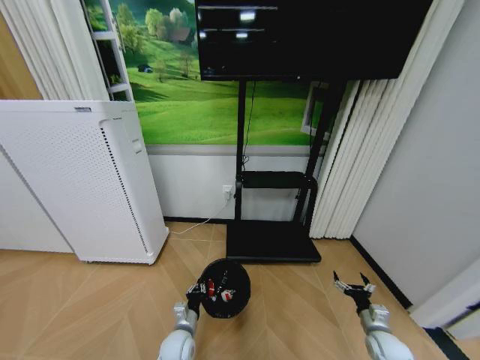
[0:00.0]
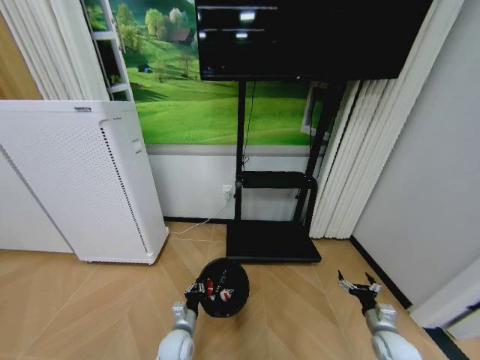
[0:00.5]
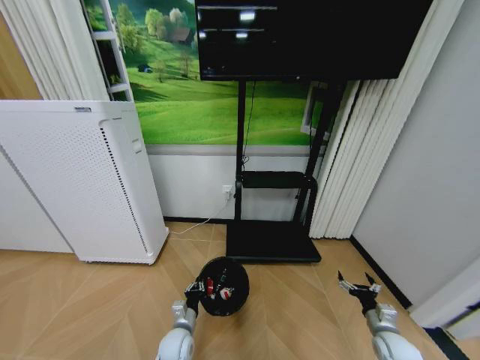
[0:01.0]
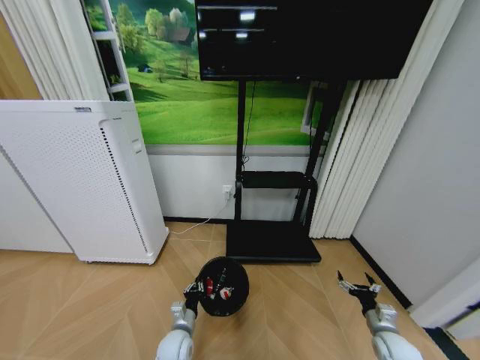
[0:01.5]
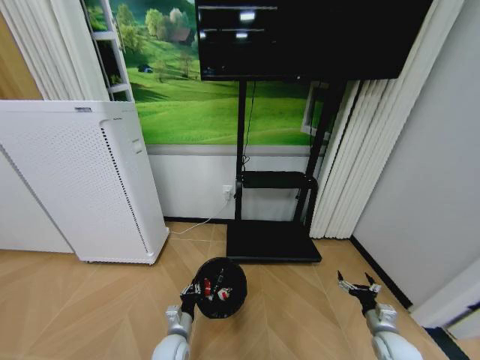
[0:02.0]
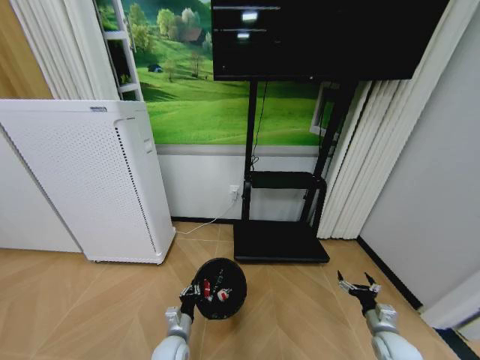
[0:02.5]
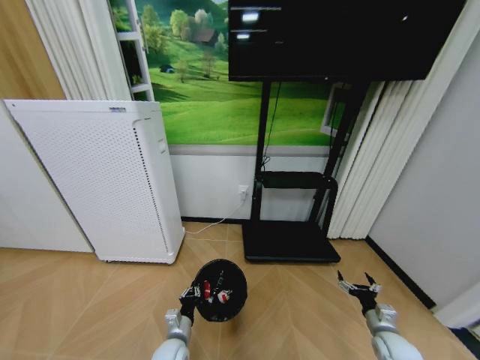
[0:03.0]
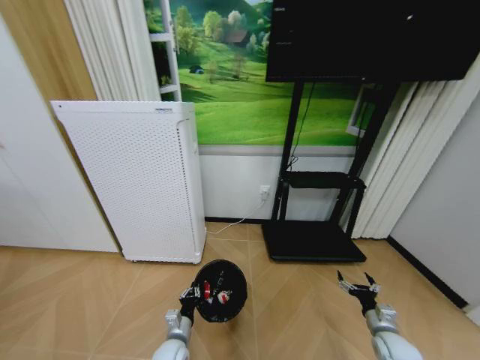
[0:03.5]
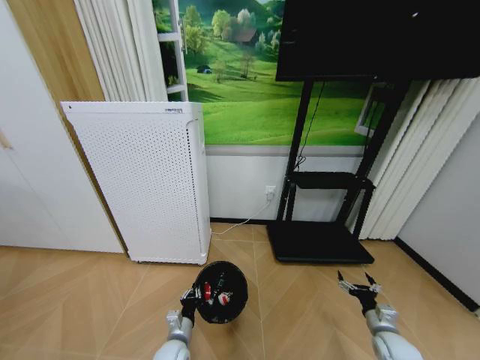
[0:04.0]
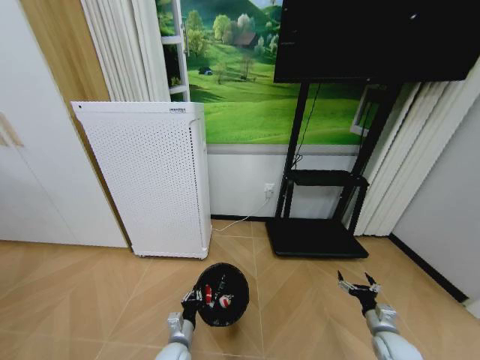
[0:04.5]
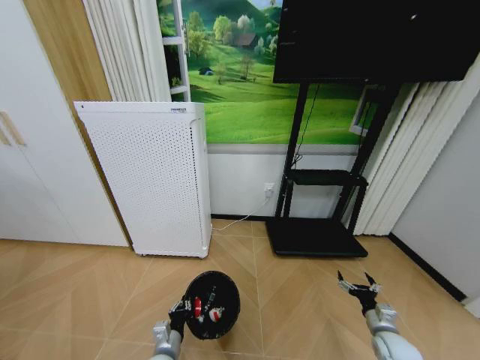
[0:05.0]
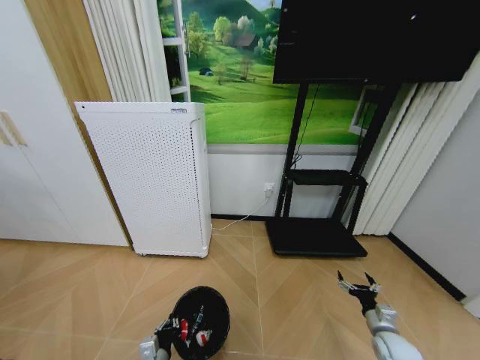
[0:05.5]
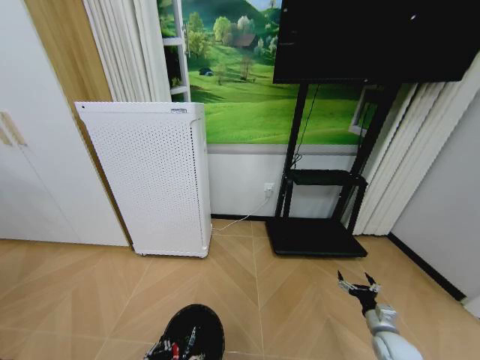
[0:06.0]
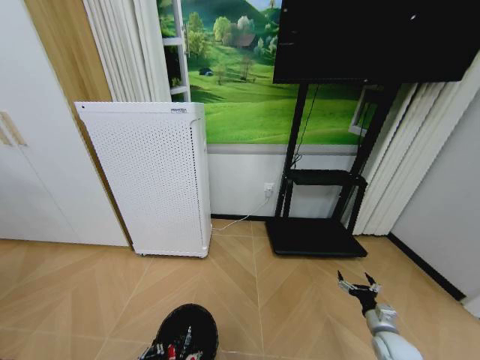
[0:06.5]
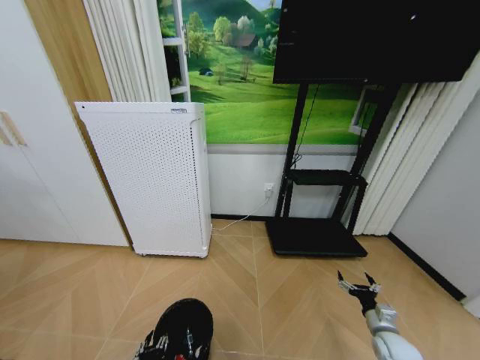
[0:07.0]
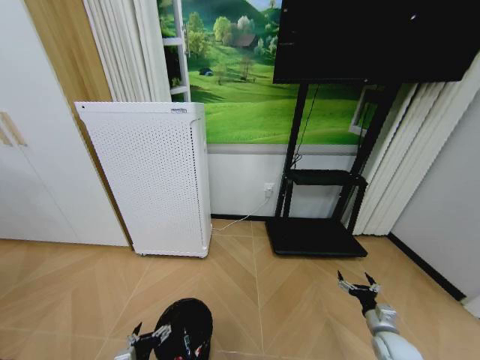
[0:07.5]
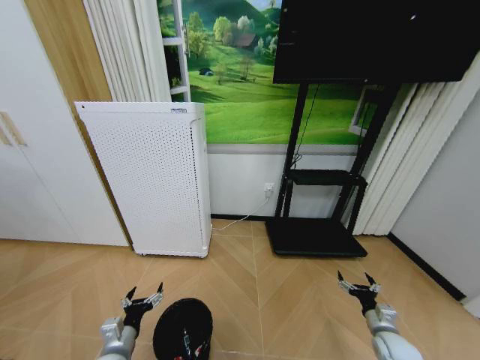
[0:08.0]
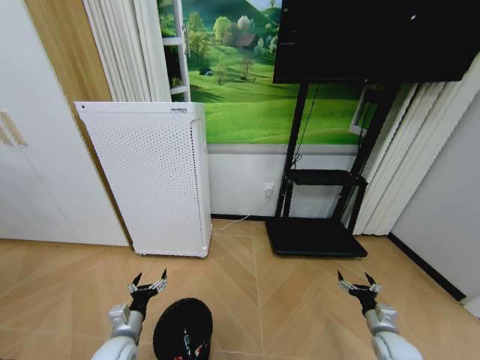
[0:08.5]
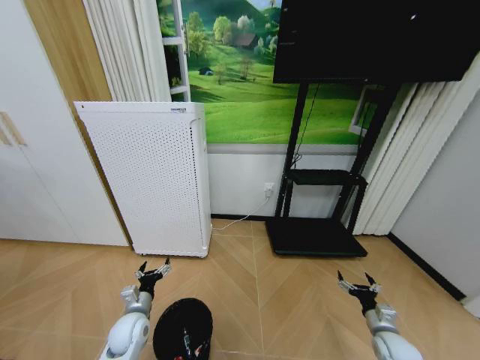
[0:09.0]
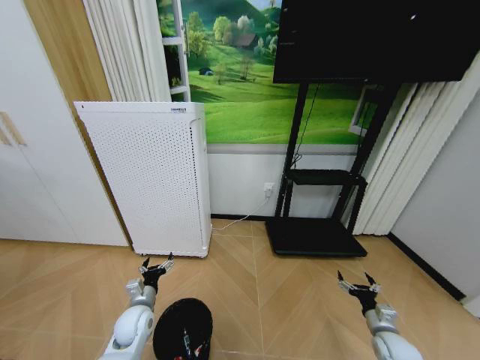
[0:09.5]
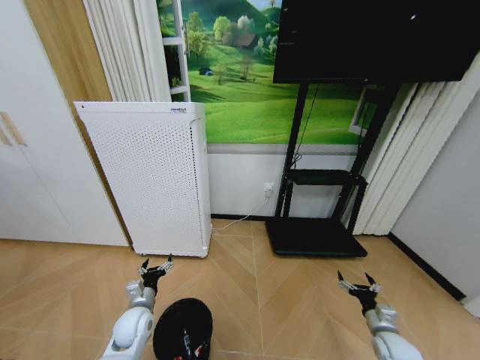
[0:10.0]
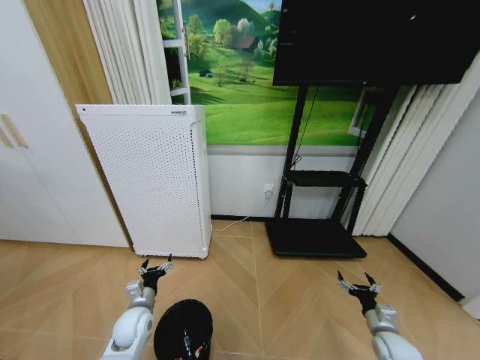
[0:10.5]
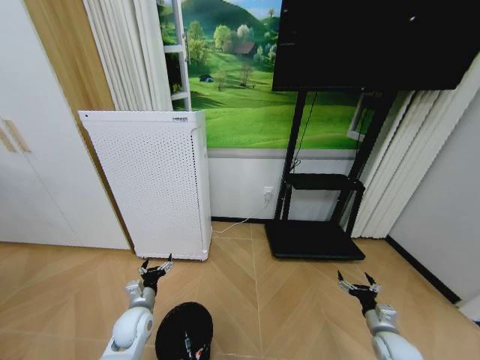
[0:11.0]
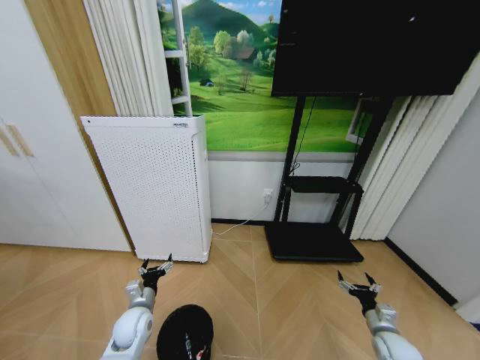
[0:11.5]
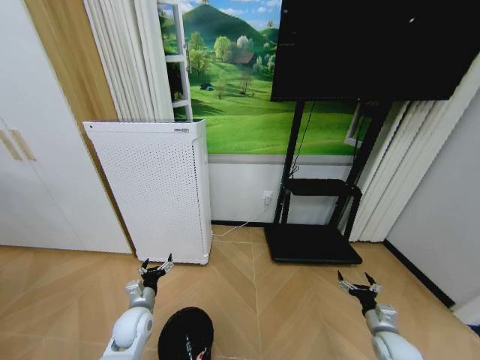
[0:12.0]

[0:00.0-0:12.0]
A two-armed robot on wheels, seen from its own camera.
Task of the whole recording: Pick up the trash bin and place the garbage on the floor into it.
0:00.0 to 0:02.0: The grippers move only a little.
0:04.0 to 0:06.0: The left gripper shifts about 10 cm backward.
0:06.0 to 0:08.0: The left gripper heads to the left, forward and upward, covering roughly 10 cm, and opens up.
0:08.0 to 0:10.0: The left gripper travels forward by approximately 10 cm.
0:10.0 to 0:12.0: Both grippers stay put.
